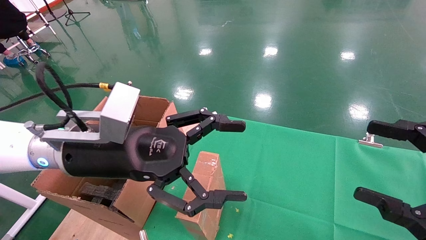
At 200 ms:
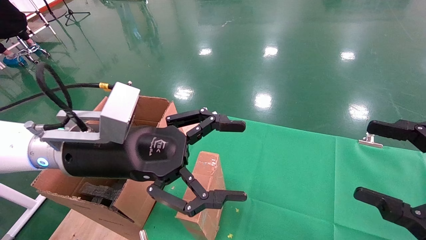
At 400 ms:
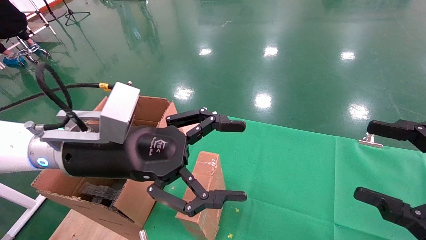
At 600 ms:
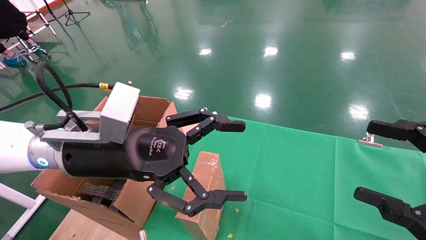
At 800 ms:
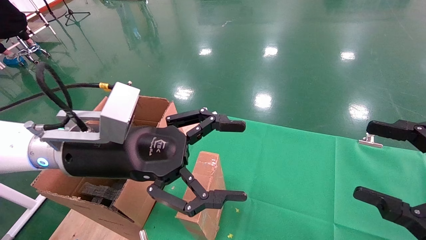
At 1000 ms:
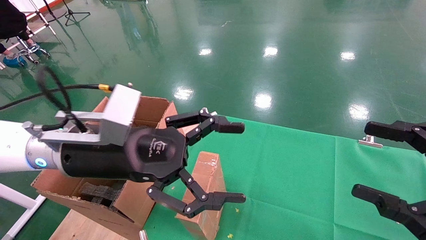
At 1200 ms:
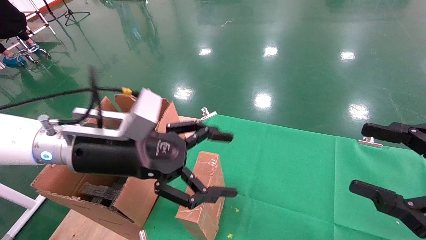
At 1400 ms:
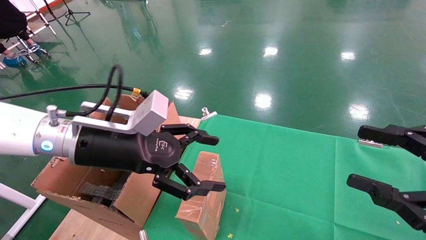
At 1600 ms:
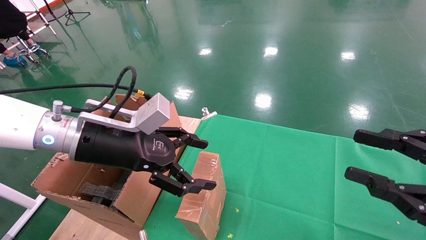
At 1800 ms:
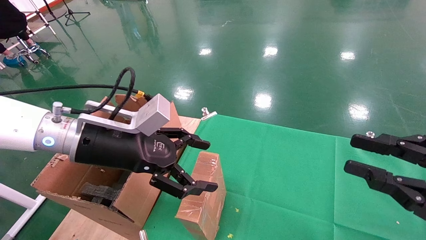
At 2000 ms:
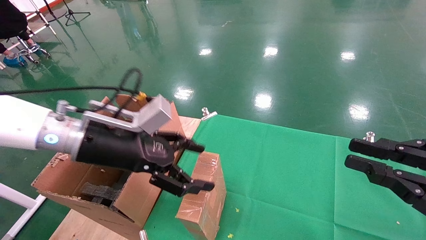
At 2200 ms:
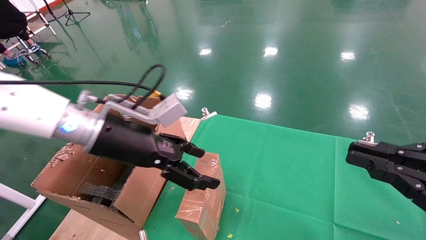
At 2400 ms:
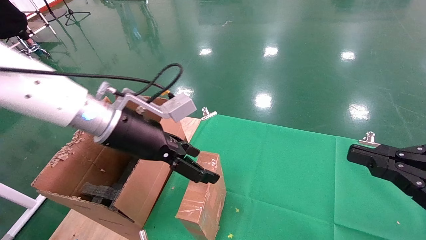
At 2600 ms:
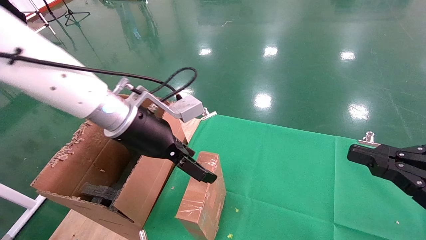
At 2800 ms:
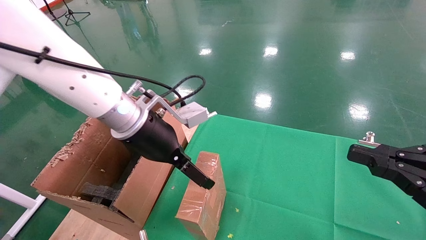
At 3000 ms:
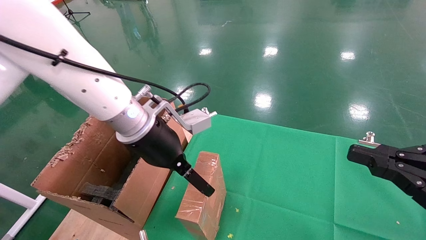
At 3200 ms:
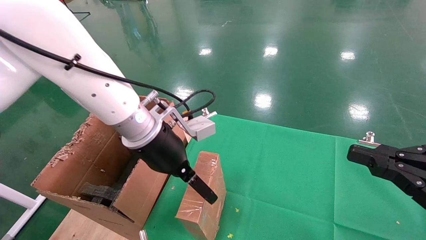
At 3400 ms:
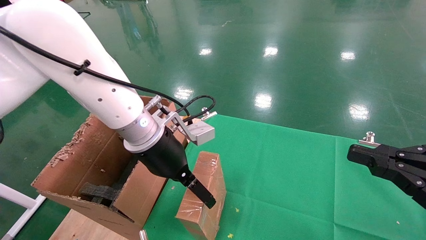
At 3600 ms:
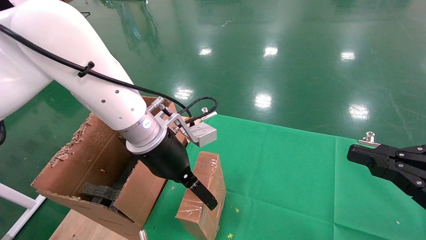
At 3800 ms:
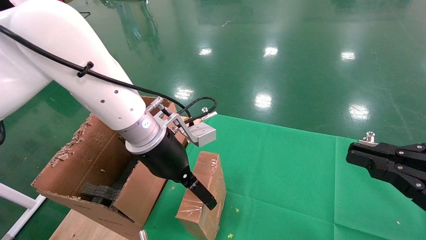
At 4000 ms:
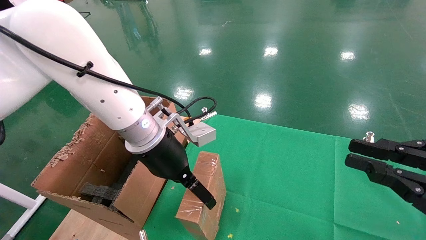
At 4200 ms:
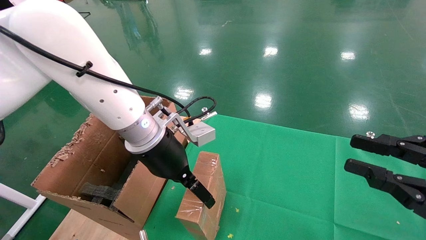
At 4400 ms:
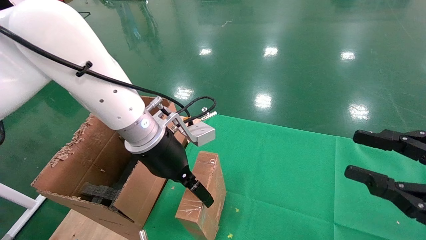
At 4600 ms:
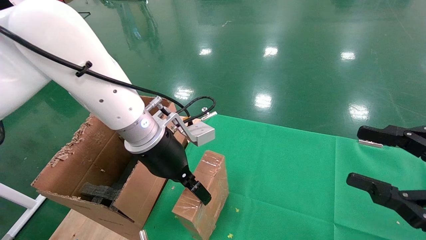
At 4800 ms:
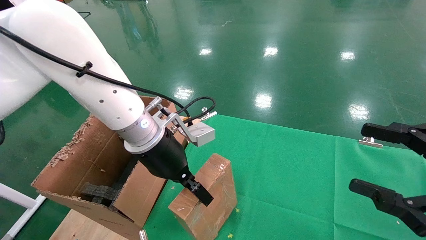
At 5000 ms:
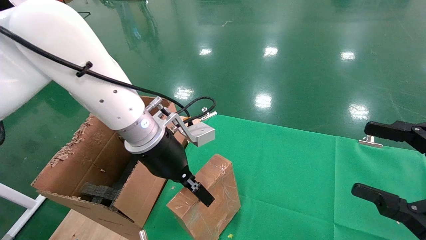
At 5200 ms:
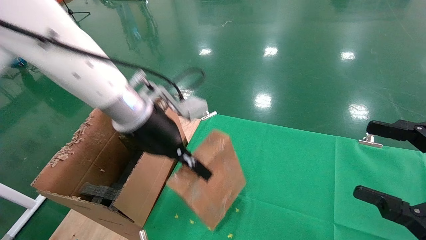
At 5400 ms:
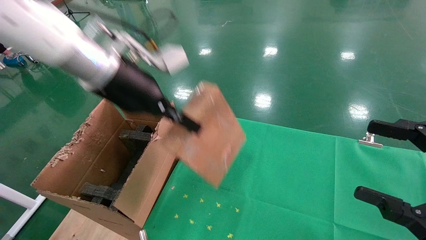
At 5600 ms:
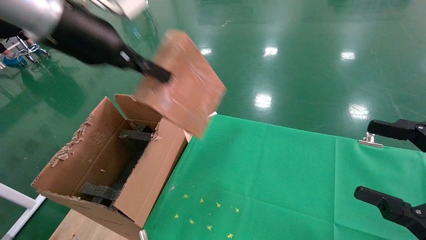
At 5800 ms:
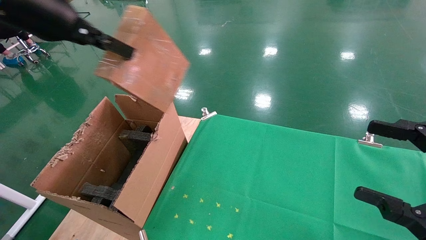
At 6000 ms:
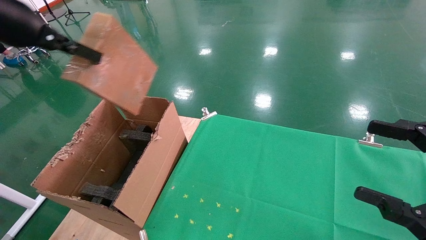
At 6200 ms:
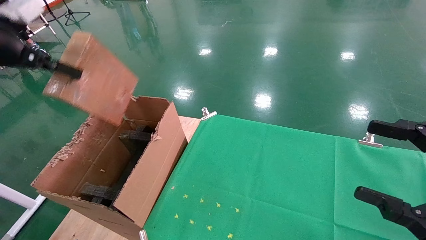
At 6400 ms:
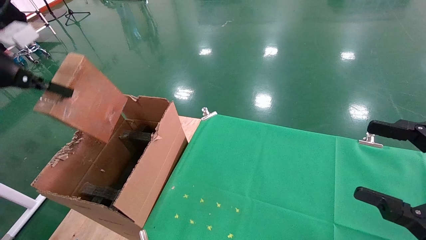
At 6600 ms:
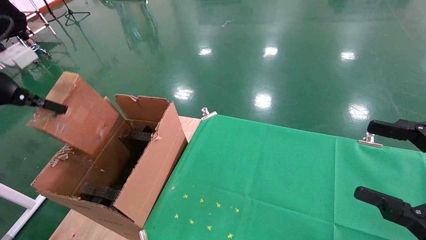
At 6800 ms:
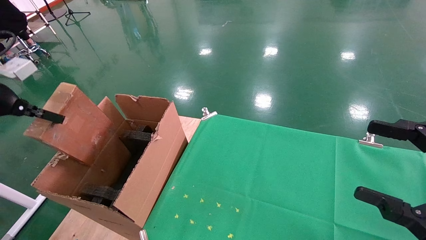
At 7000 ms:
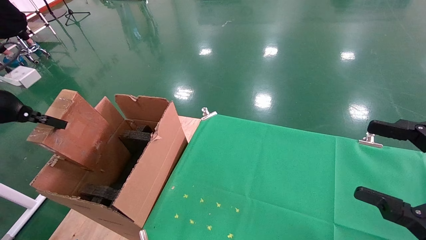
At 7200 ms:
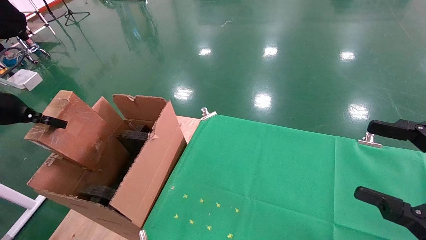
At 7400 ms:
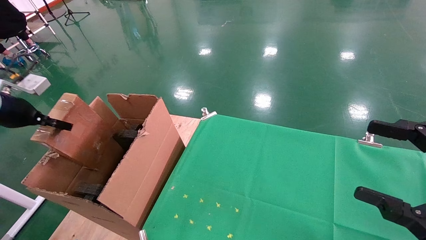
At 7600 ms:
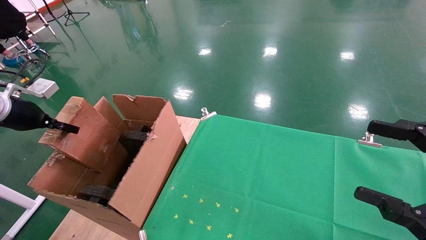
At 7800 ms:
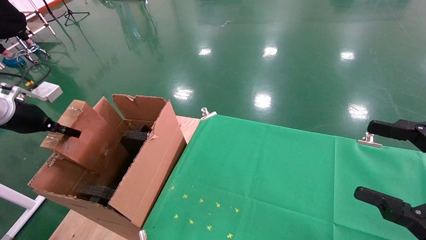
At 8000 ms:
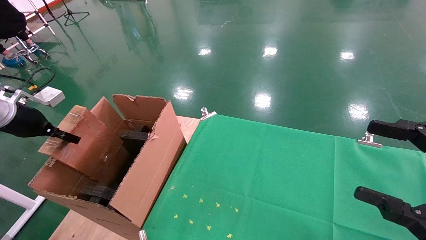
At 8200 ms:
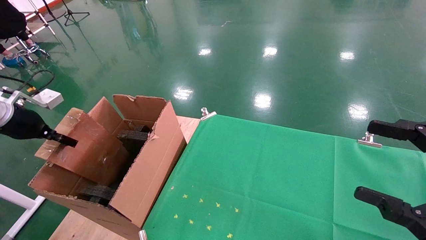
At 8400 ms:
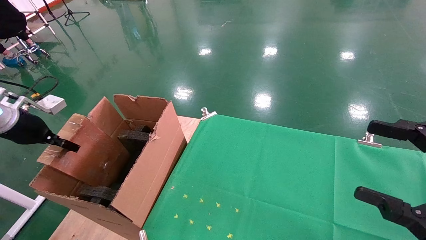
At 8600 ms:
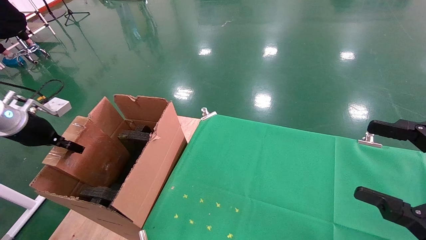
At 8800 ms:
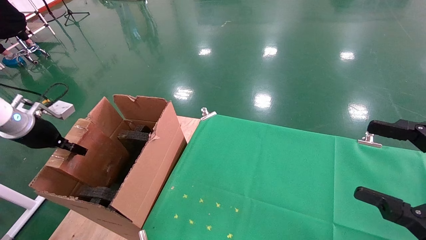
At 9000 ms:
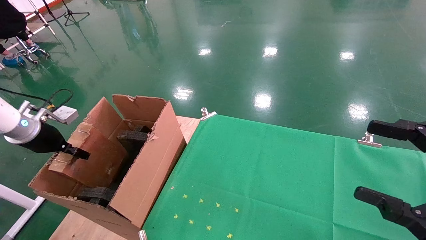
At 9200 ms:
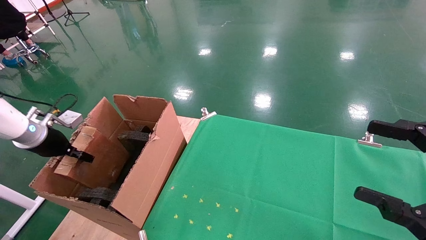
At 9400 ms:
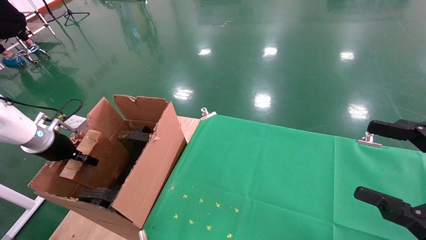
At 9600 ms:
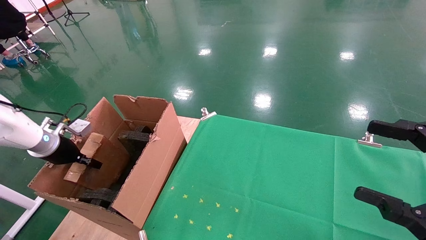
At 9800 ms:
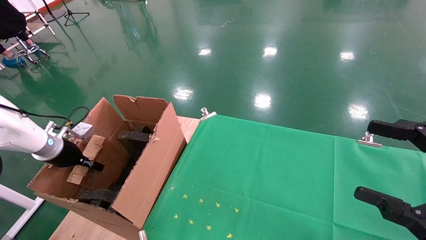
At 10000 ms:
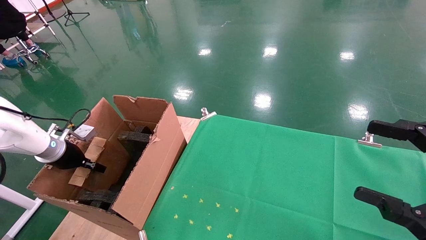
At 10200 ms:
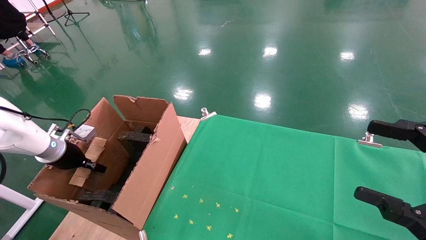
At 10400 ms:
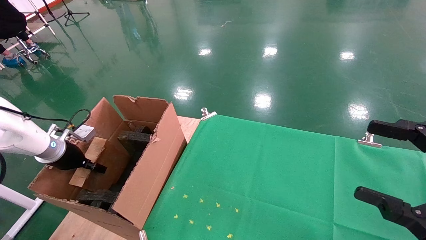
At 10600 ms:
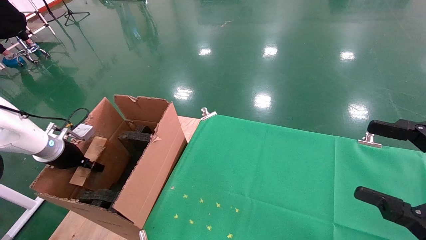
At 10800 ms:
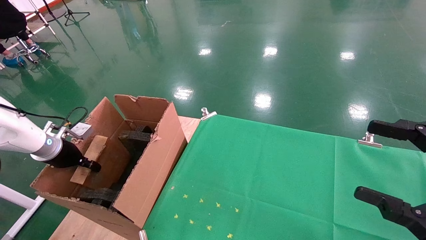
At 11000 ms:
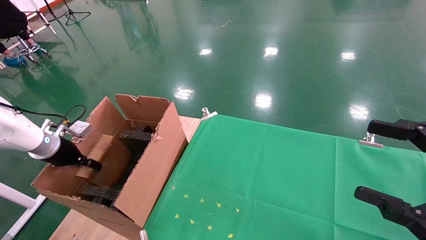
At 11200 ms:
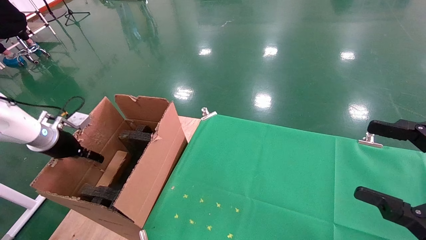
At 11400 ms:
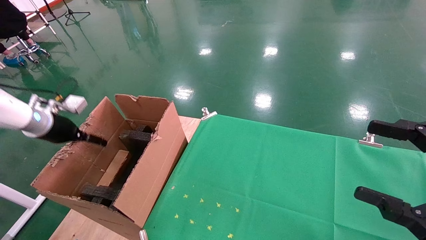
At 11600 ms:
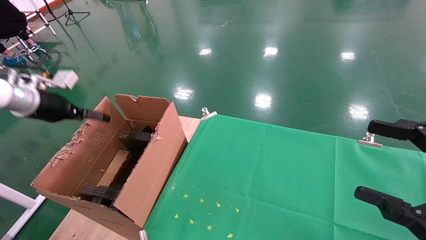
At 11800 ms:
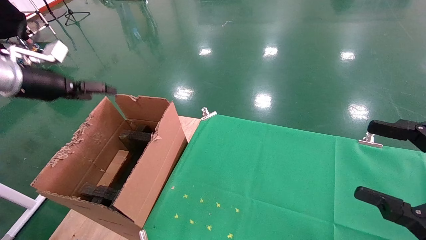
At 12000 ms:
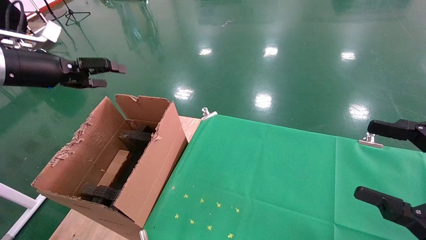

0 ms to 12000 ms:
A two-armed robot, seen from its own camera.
Task of the whole recording: using a robotic arm to pick up a cardboard box and palace it the carton.
Step, 1200 ms to 4800 ms: Pick up the mouse and the power cord paper box.
Step, 5000 ms to 11600 ms: Place the mouse and the power cord paper box into the container.
0 ms to 1600 ms: The right gripper closes up.
1600 ms to 3000 ms: The right gripper closes up. Meanwhile the left gripper travels to the right and forward by about 10 cm.
3000 ms to 4400 ms: The grippers move only a little.
4400 ms to 6000 ms: The left gripper goes roughly 30 cm to the left and upward, and closes up. Meanwhile the right gripper opens up.
6000 ms to 7600 ms: The left gripper moves downward and to the left, about 25 cm.
7600 ms to 9000 ms: The left gripper travels downward by about 5 cm.
9000 ms to 10400 ms: The left gripper goes approximately 5 cm downward.
10400 ms to 12000 ms: The left gripper is displaced upward by approximately 20 cm, and opens.

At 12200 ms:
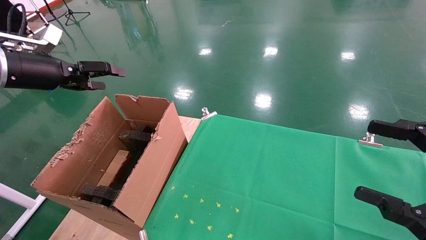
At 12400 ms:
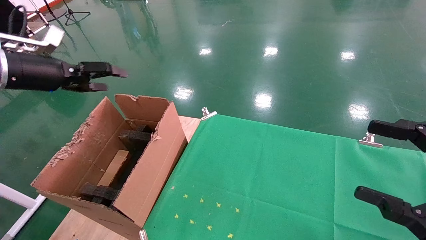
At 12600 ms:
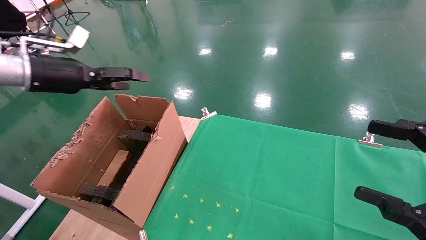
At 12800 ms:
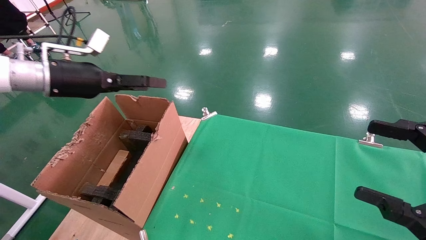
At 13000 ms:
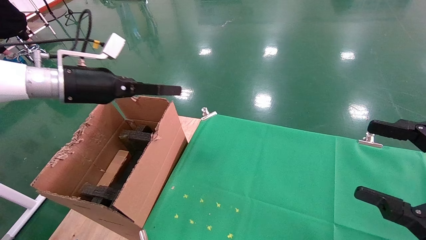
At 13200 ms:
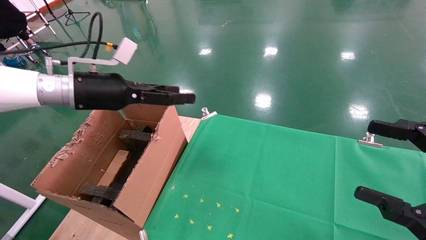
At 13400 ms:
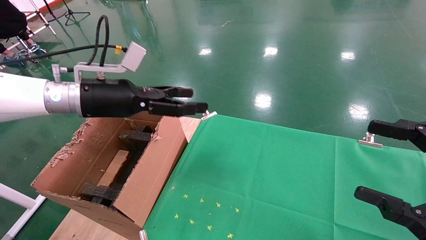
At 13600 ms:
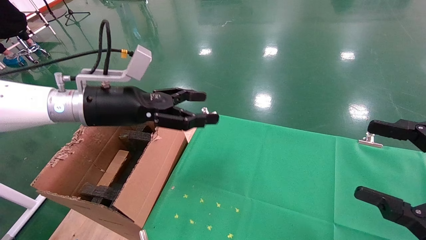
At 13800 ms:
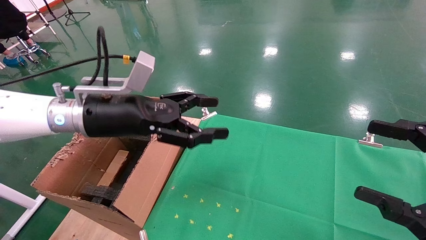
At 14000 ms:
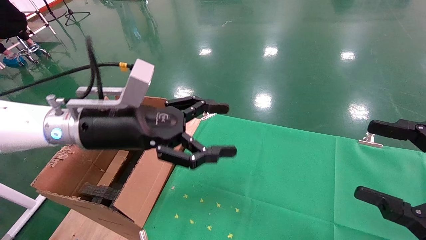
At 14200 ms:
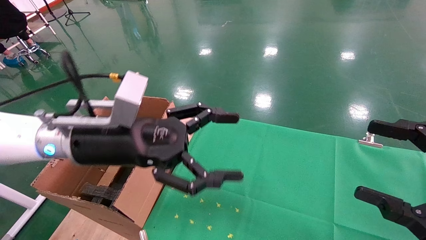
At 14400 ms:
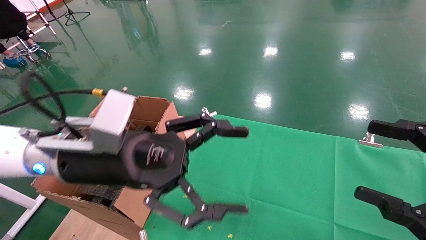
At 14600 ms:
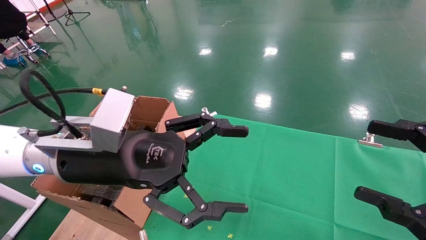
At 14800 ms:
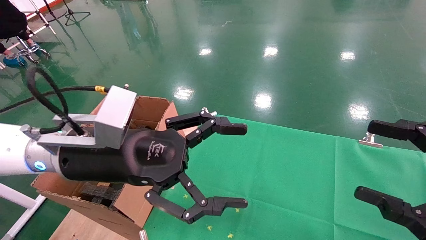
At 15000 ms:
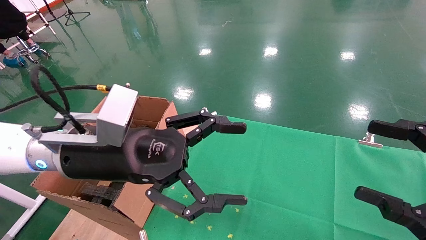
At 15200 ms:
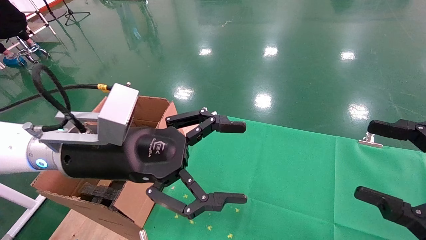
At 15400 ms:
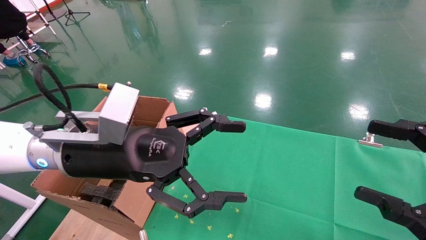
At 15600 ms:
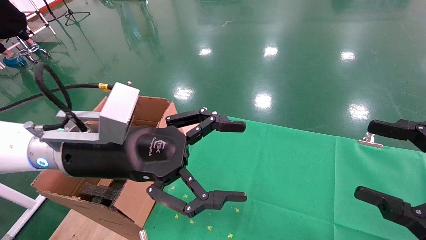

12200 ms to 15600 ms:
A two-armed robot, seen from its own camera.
Task of the whole recording: using a robotic arm to pick up a cardboard box and palace it the carton.
12200 ms to 13800 ms: The left gripper is displaced to the right by some 20 cm.
13800 ms to 15600 ms: The left gripper travels backward by roughly 5 cm.

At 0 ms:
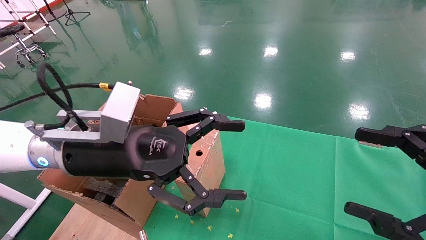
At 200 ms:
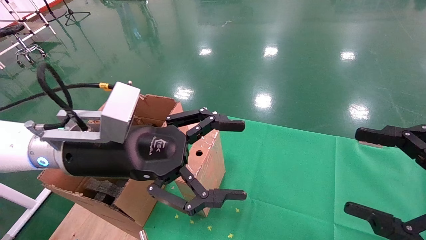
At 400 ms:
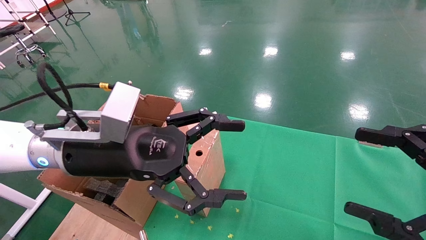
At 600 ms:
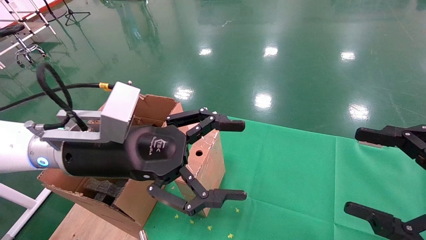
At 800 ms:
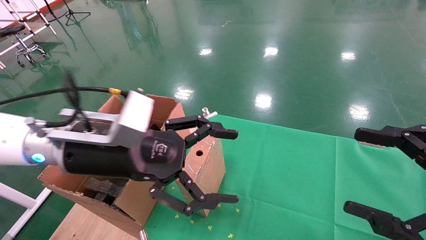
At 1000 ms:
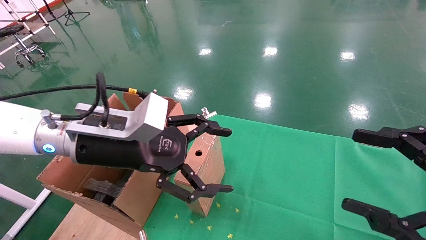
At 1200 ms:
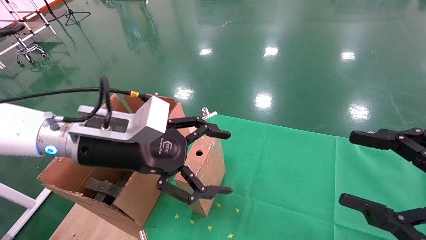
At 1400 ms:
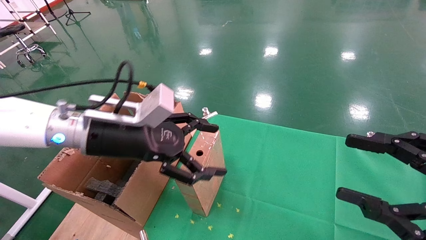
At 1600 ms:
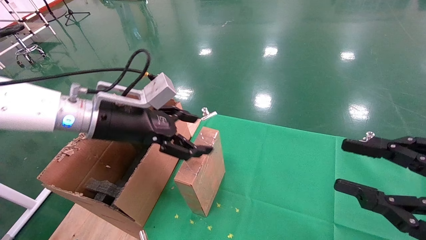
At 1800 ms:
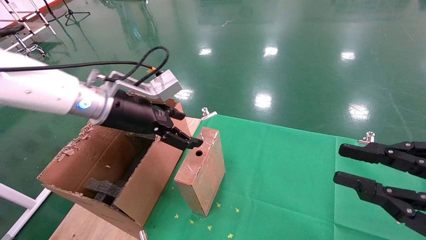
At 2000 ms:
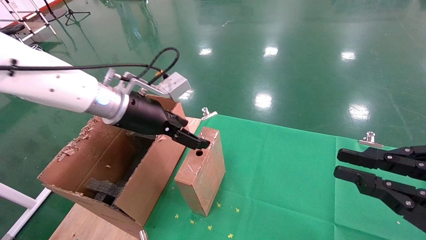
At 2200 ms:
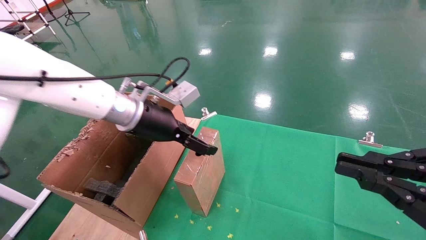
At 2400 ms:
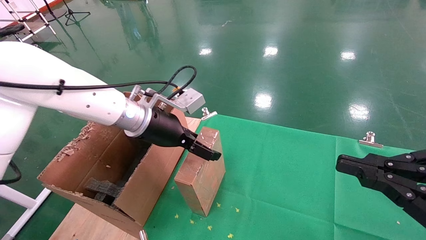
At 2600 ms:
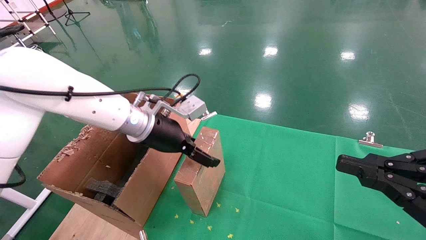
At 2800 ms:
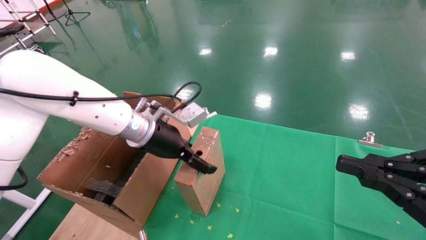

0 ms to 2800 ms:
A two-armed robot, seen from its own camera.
Task of the whole recording: using a robotic arm to pick up a cardboard box and palace it the carton.
0 ms to 1400 ms: The left gripper changes place by about 5 cm.
1400 ms to 2800 ms: The right gripper closes; the left gripper goes some 10 cm forward.
